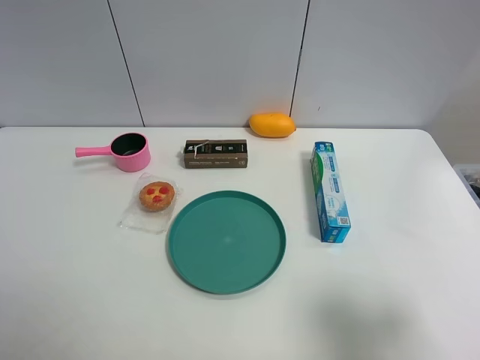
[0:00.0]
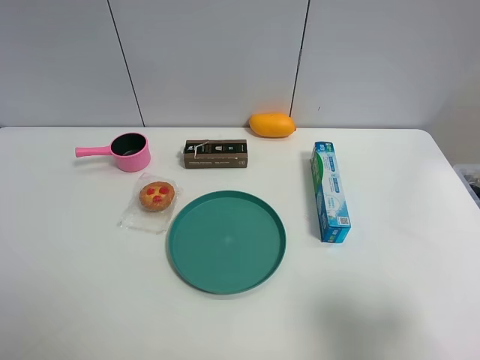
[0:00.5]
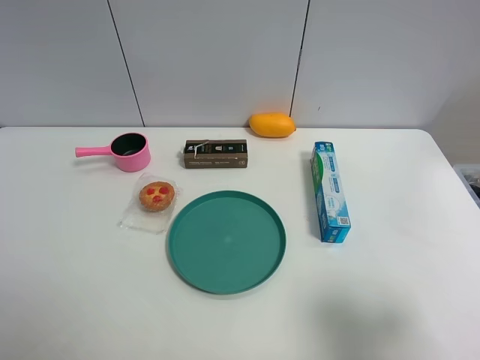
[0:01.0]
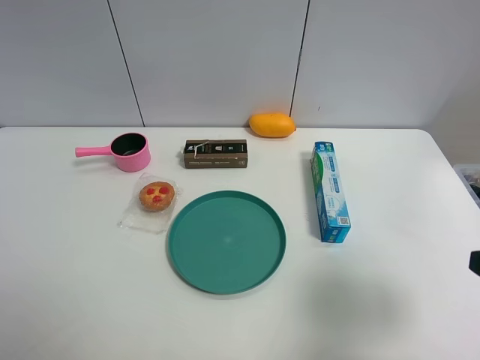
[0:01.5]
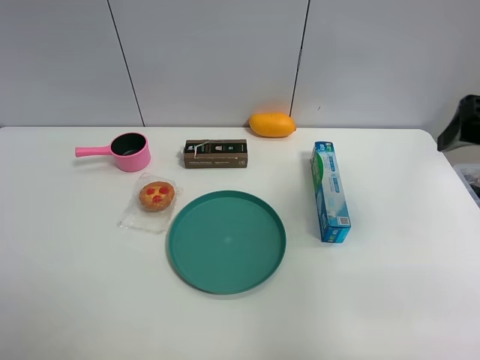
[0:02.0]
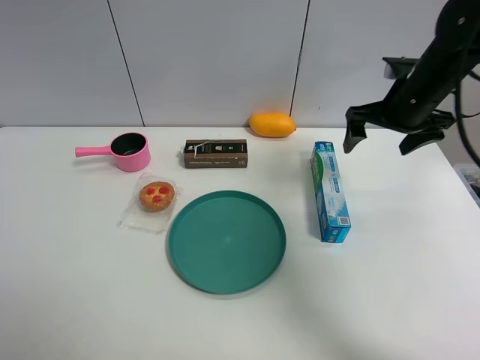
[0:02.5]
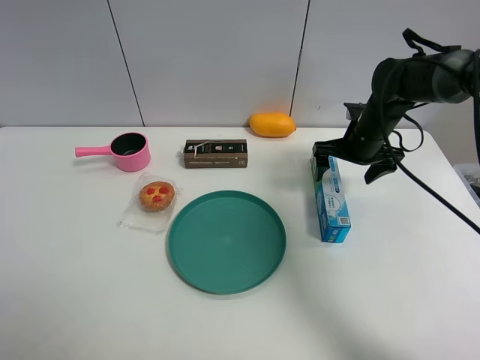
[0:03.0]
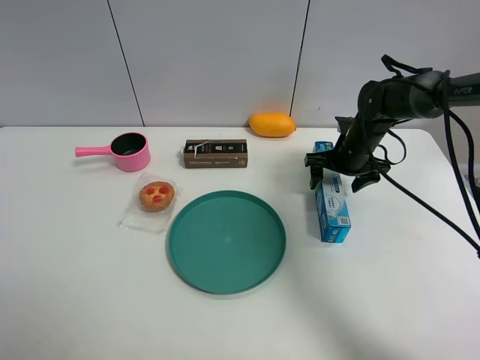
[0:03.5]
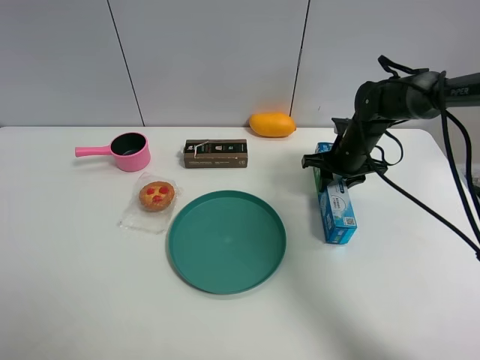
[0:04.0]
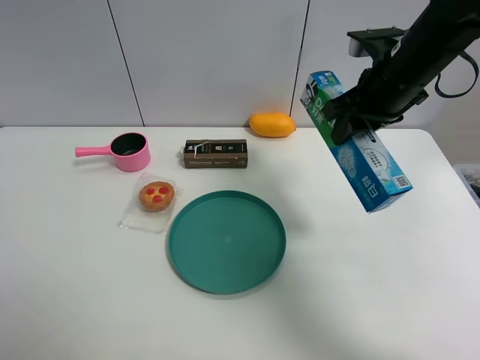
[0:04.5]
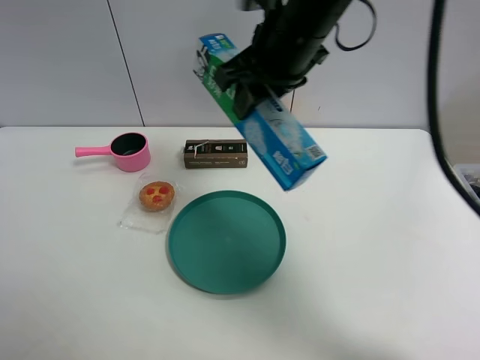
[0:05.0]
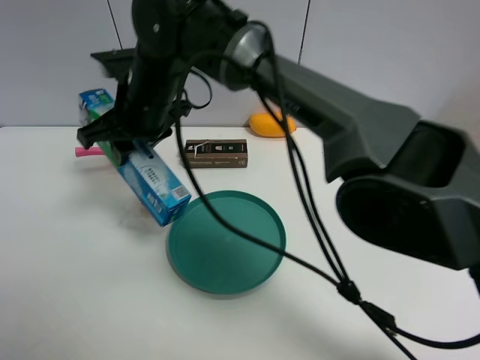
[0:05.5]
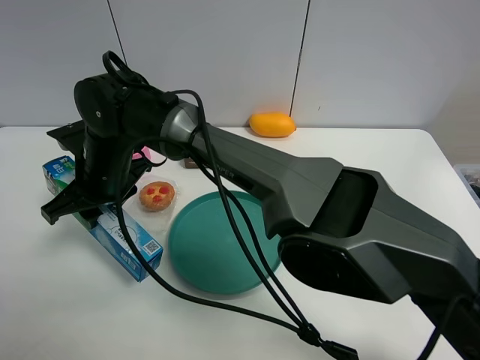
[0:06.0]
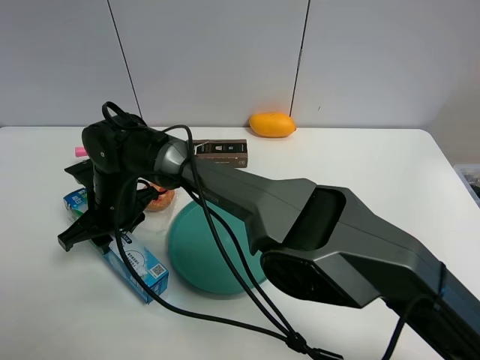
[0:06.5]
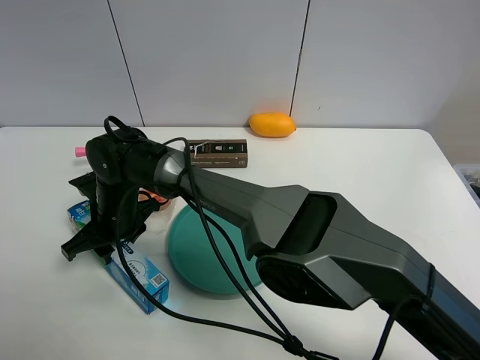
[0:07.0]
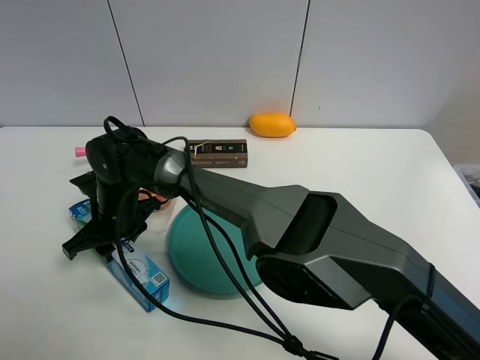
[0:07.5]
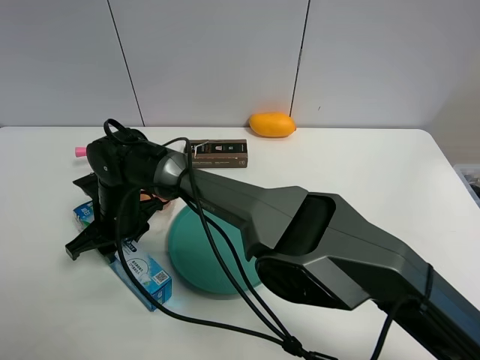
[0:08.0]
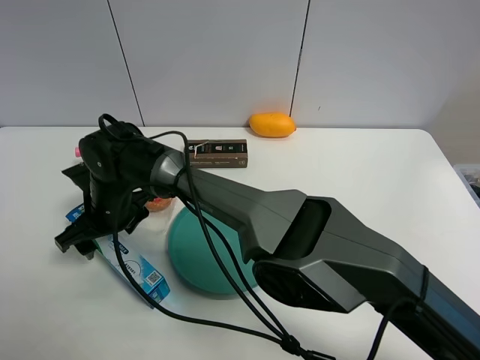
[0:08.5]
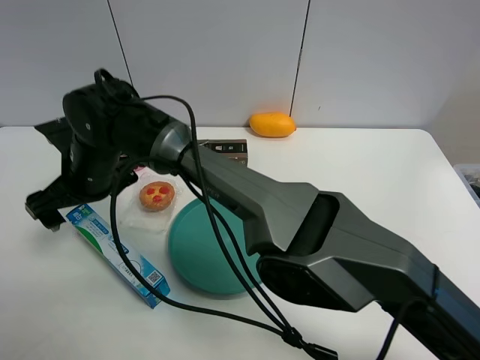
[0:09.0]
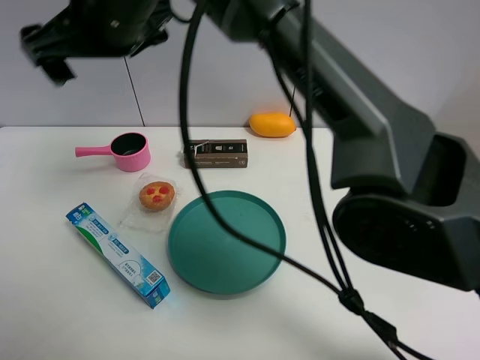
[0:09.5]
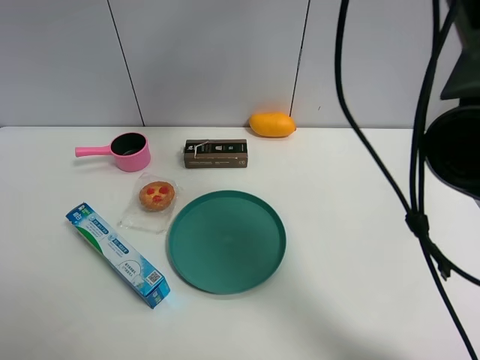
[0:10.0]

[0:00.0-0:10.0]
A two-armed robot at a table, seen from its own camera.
Task of the whole recording: the gripper move the object.
Step, 0:00.0 to 0:03.5: Grasp the toothpaste with the right gripper.
Step, 0:04.0 to 0:08.0: Place the toothpaste on the table with the right gripper.
0:00.0 to 0:02.0: The right gripper heads forward, covering some 25 cm.
0:02.0 to 0:04.0: The right gripper travels downward, forward and to the left by some 30 cm, and closes up.
0:04.0 to 0:06.0: The right gripper goes some 40 cm to the left.
0:06.0 to 0:08.0: The right gripper is displaced downward by some 10 cm.
0:08.0 to 0:10.0: The right gripper travels upward and to the right by roughly 40 cm, and opens.

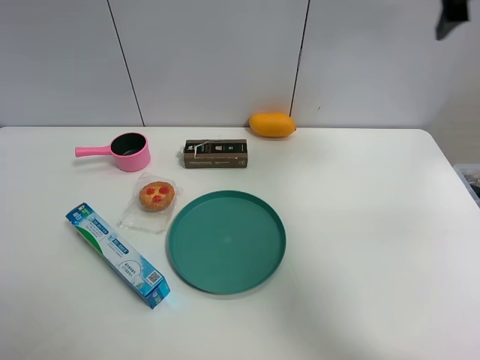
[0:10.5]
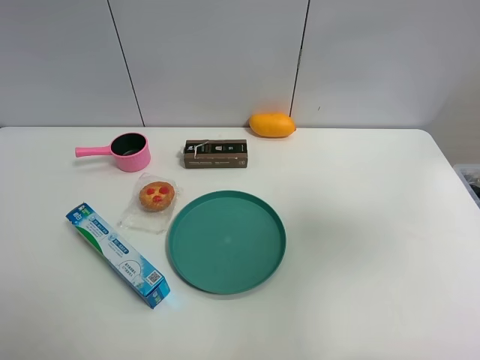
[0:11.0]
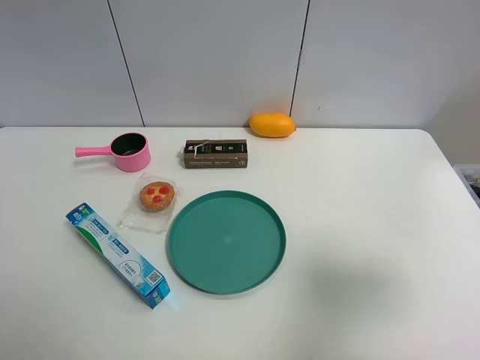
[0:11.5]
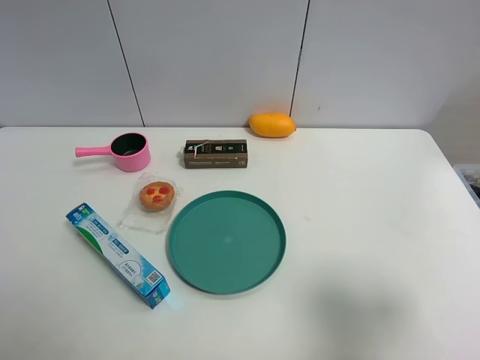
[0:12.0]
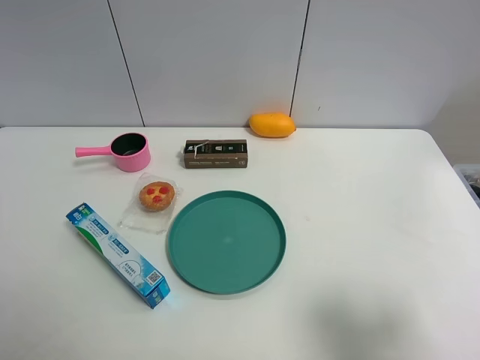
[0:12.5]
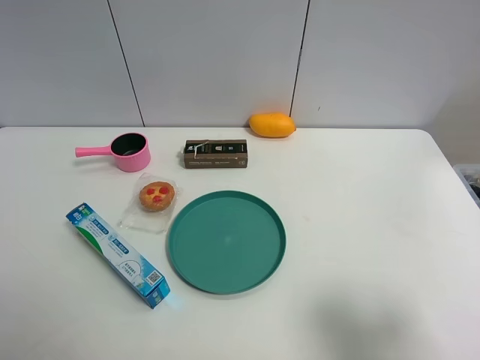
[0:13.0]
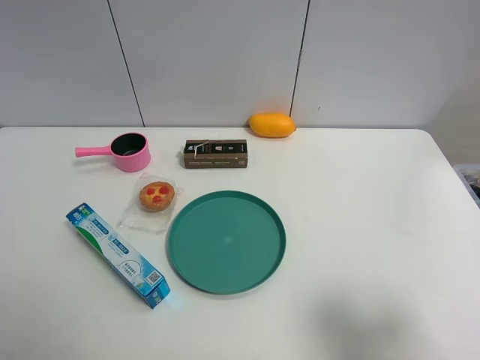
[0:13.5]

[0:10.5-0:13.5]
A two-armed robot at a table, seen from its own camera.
Task of the whole recording: the gripper move the object.
0:10.5 to 0:12.0: The right gripper is displaced backward and downward by about 35 cm.

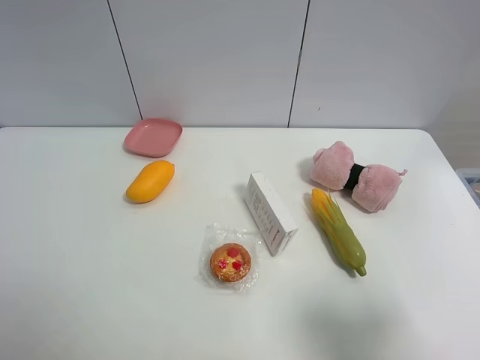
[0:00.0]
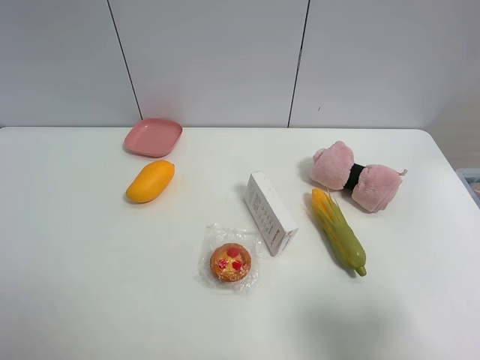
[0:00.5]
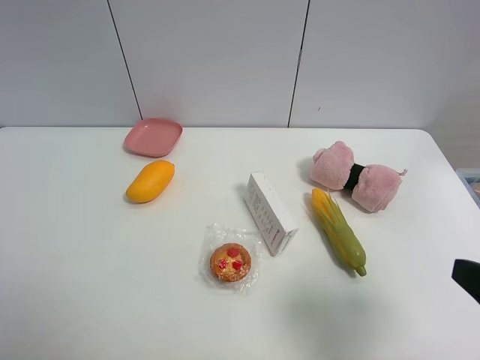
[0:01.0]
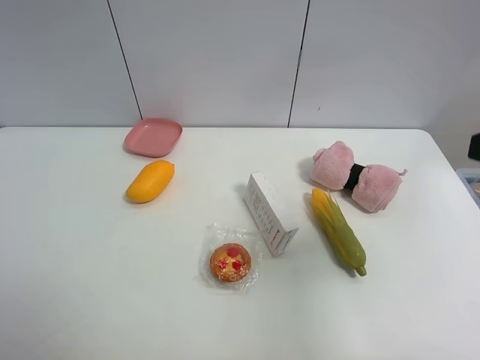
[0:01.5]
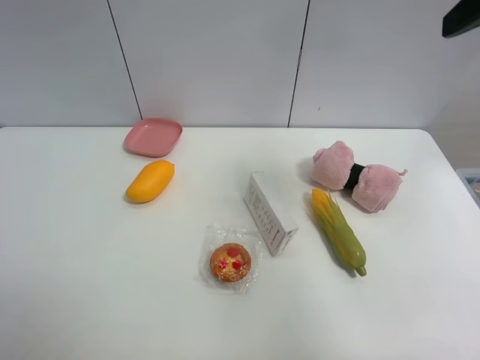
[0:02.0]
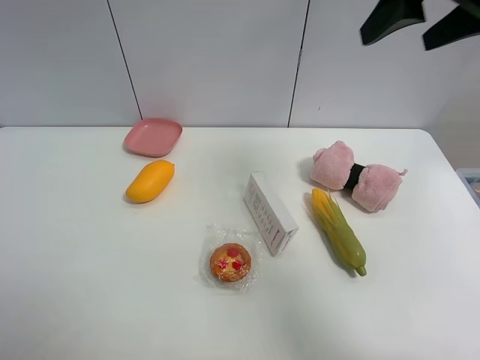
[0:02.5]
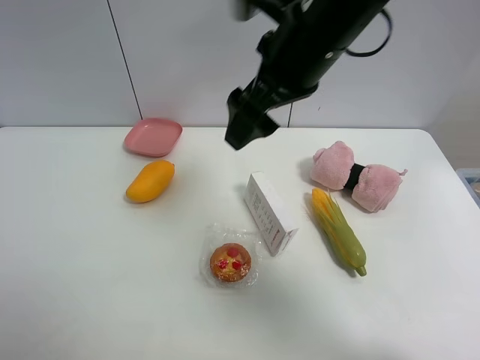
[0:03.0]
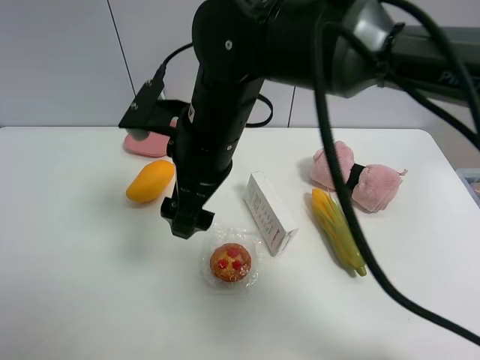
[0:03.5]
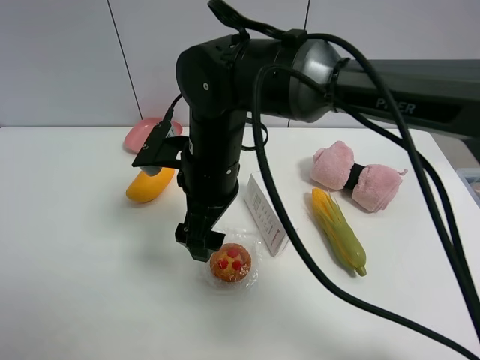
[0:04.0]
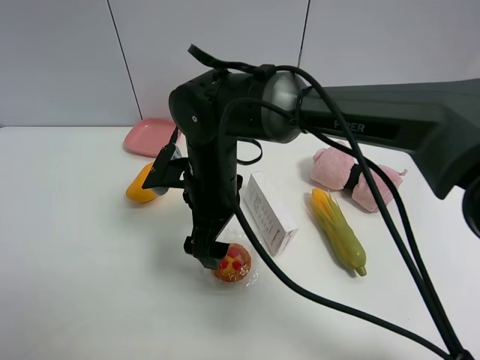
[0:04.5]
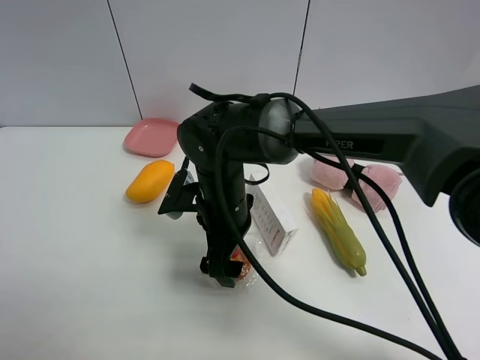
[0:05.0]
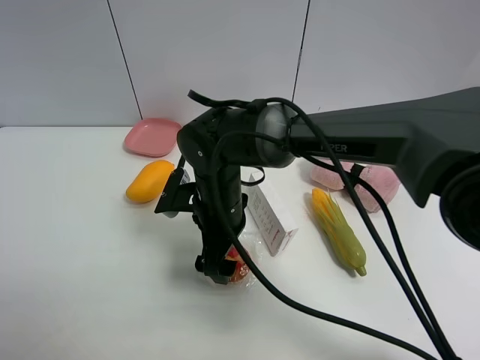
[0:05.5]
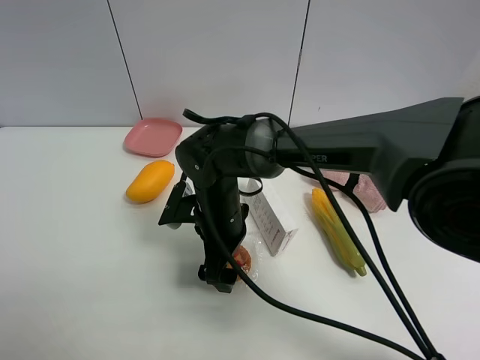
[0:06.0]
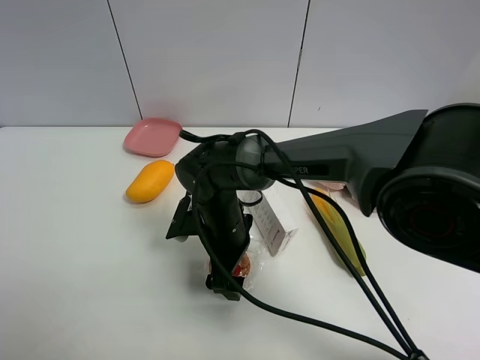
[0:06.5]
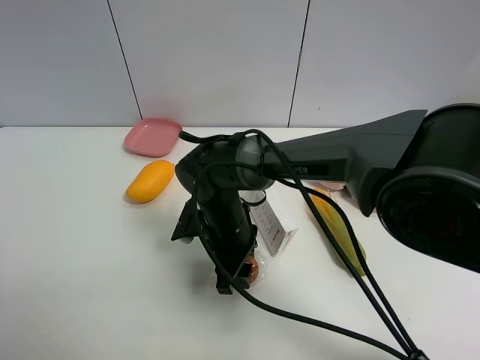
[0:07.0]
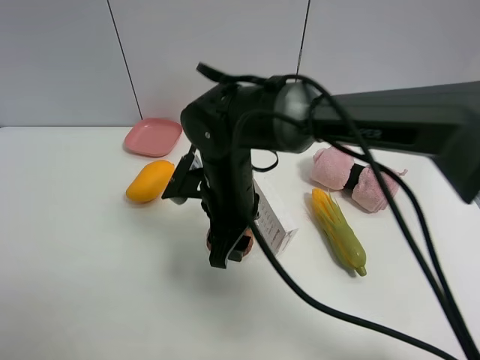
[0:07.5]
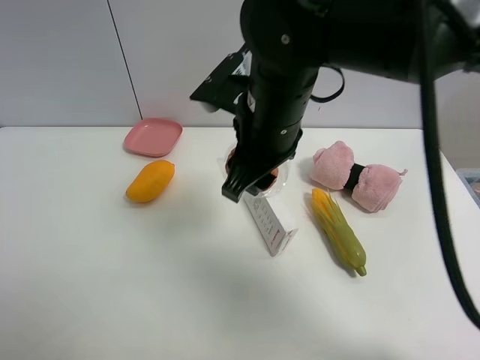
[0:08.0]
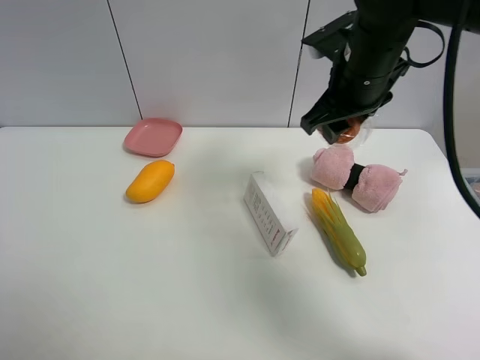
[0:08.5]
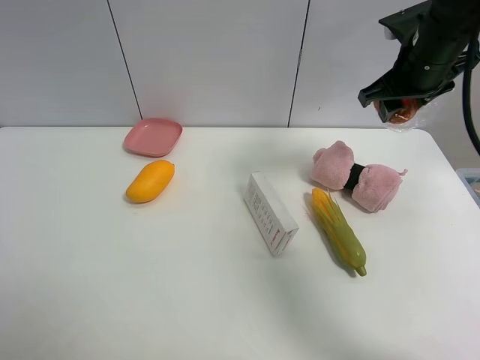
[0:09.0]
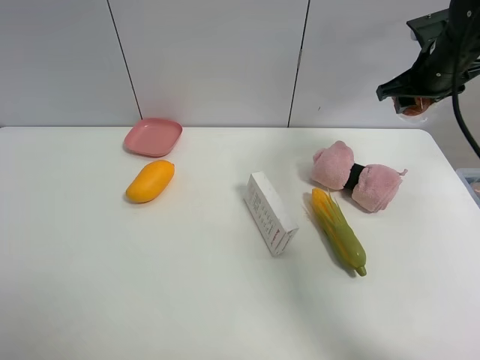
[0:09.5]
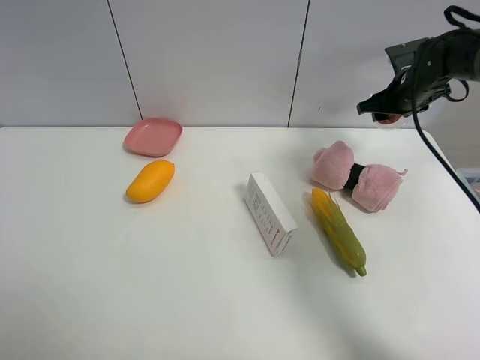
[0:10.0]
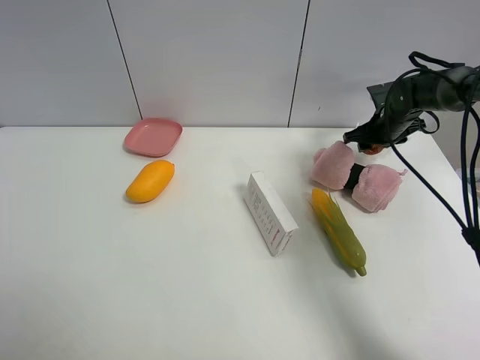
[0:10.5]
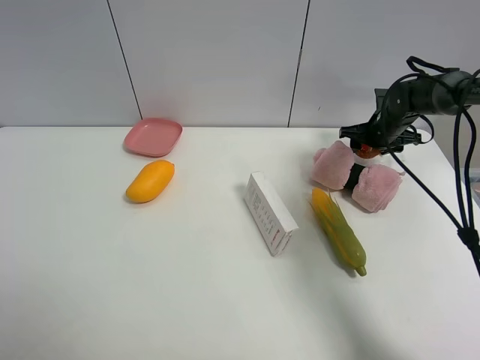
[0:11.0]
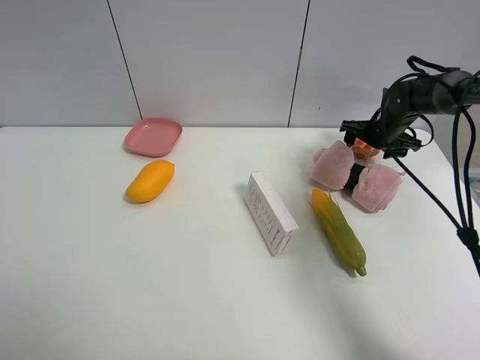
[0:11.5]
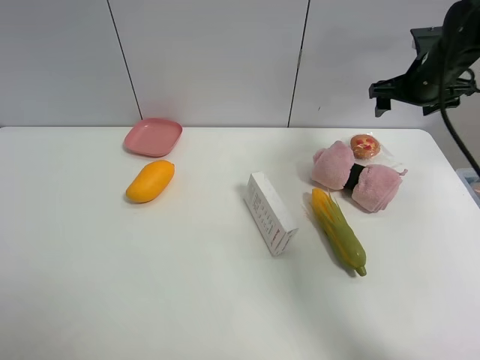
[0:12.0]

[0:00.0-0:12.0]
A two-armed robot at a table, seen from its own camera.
Task of the whole recording: the gripper move the object.
Step, 0:00.0 to 0:06.5: Grasp the egg tart with the right gripper.
Step, 0:07.0 to 0:11.0: Place the egg tart on the table with the right gripper.
0:00.0 to 0:02.0: The right gripper shifts some 30 cm forward and upward.
0:02.0 to 0:04.0: The right gripper moves to the left and downward, about 40 cm.
0:04.0 to 0:06.0: The right gripper goes about 10 cm downward.
0:06.0 to 0:08.0: The right gripper heads upward, covering approximately 15 cm, and closes up.
0:08.0 to 0:10.0: The right gripper is displaced to the right and forward by about 35 cm.
0:10.0 to 0:12.0: The right gripper is displaced upward by approximately 5 cm, and opens its fingers.
